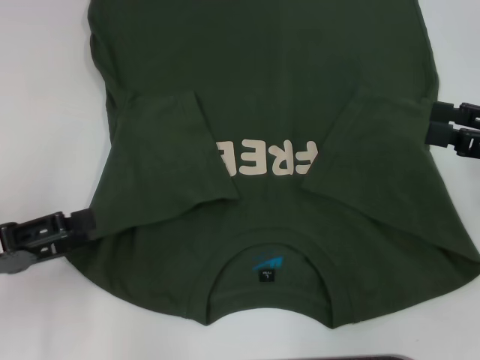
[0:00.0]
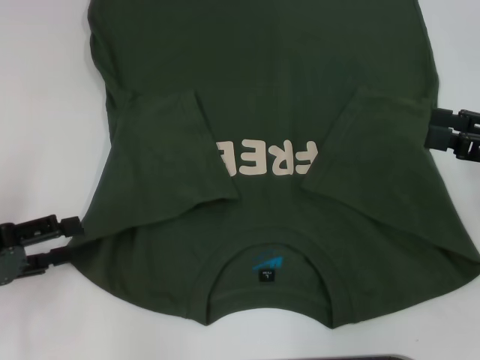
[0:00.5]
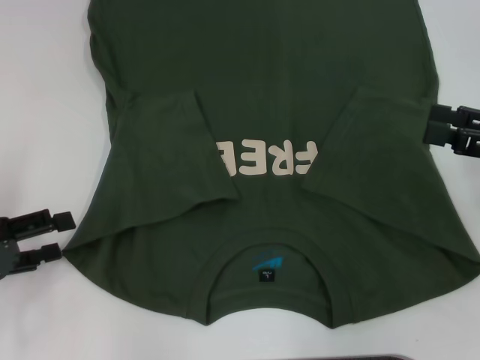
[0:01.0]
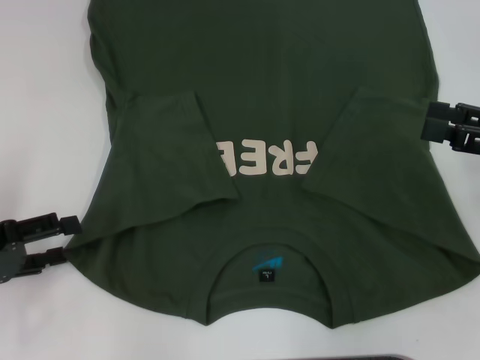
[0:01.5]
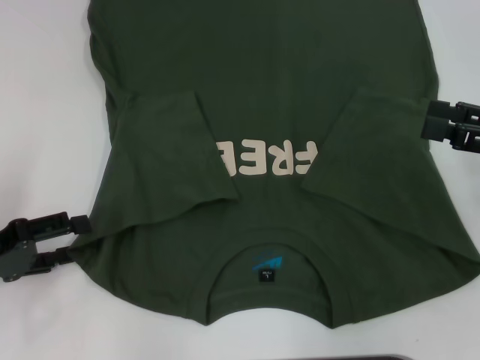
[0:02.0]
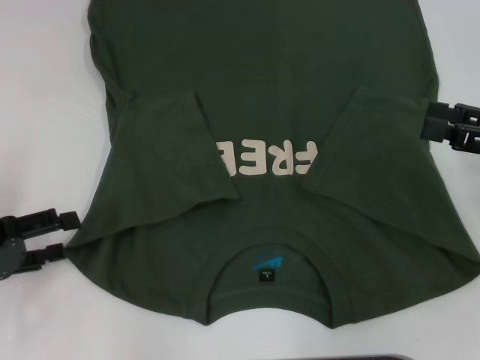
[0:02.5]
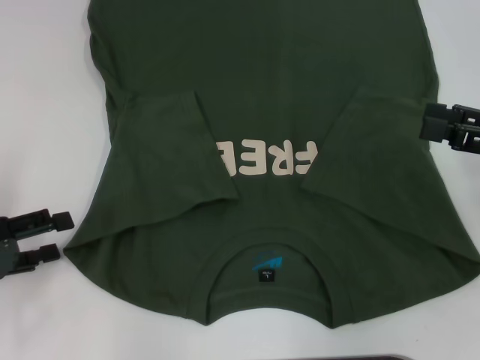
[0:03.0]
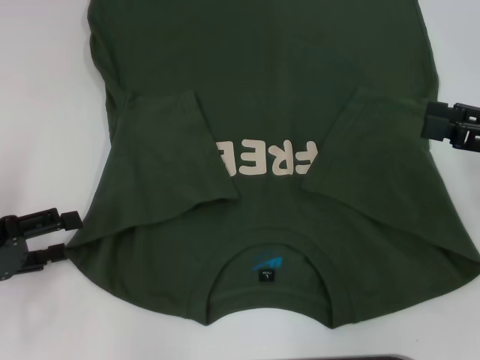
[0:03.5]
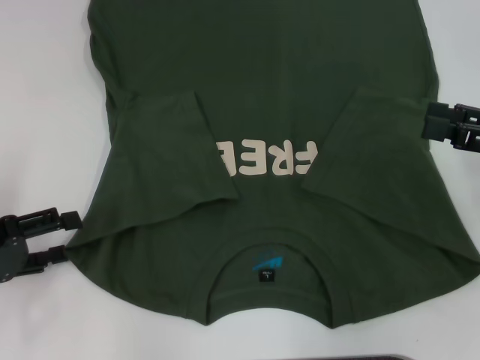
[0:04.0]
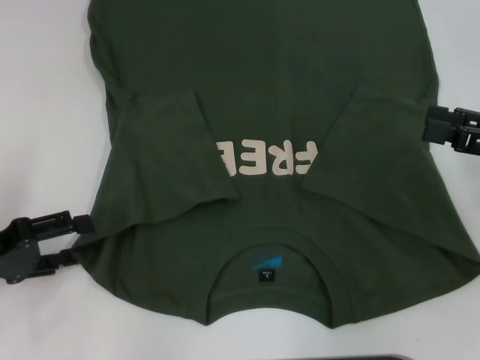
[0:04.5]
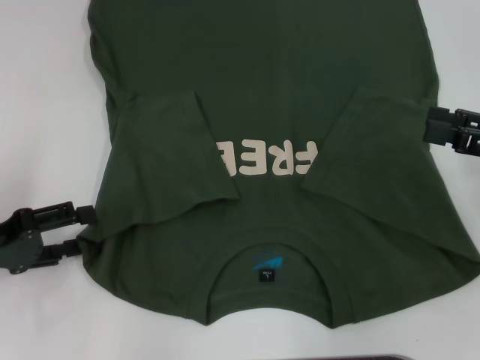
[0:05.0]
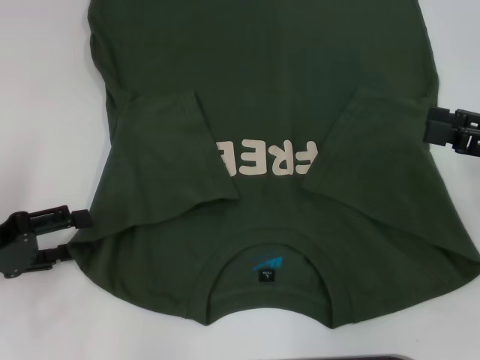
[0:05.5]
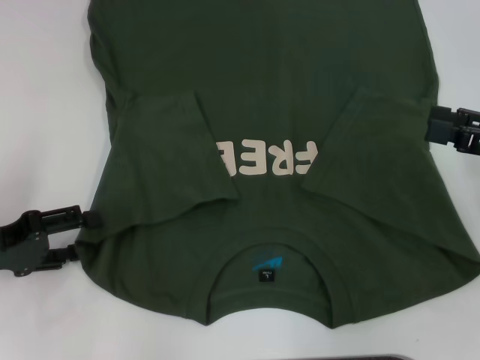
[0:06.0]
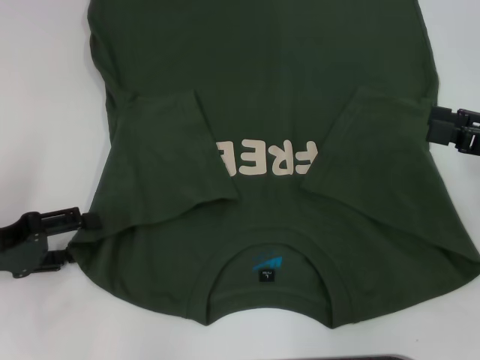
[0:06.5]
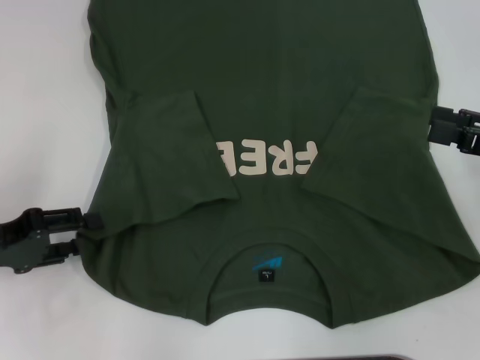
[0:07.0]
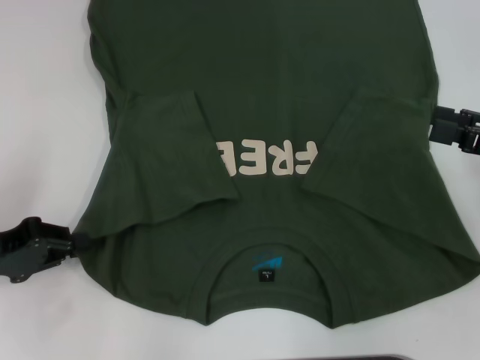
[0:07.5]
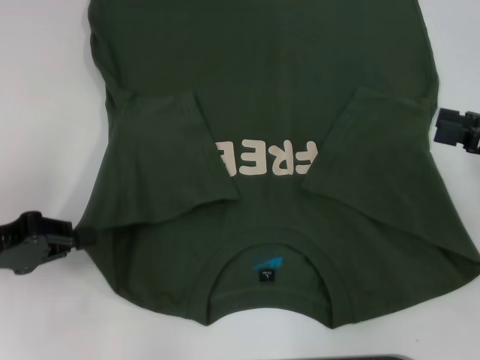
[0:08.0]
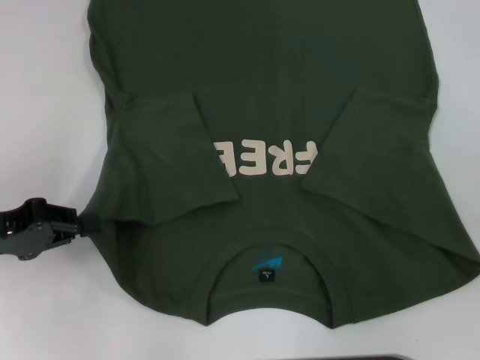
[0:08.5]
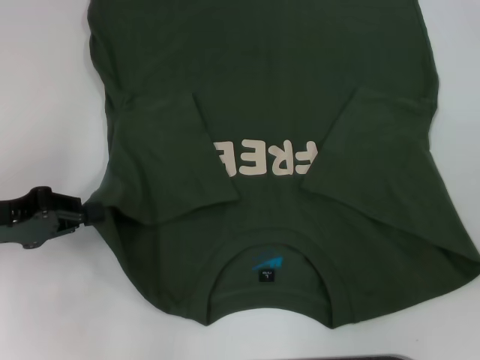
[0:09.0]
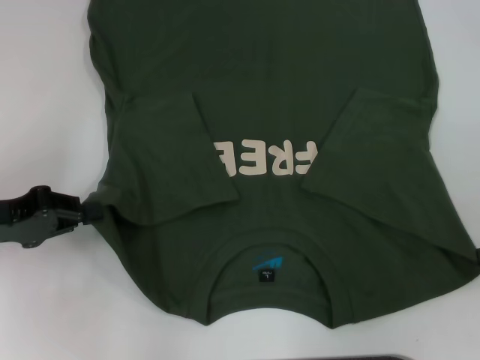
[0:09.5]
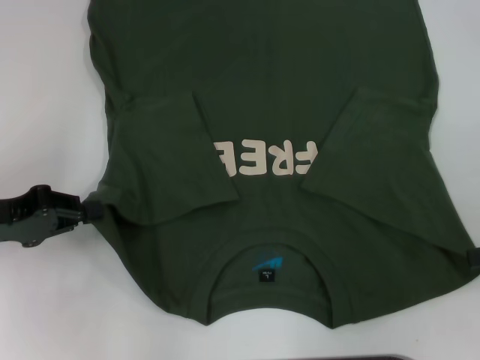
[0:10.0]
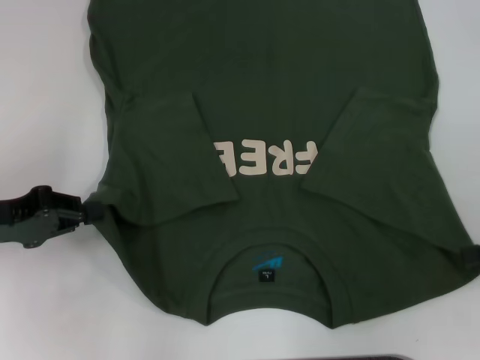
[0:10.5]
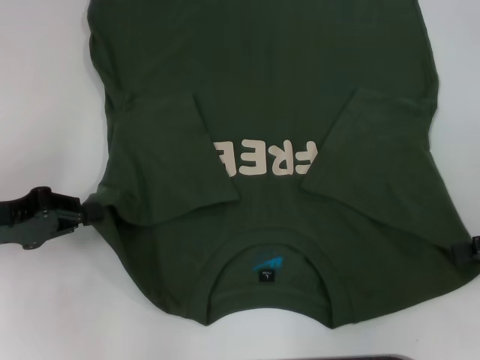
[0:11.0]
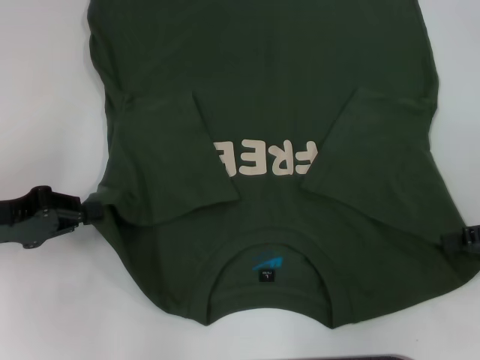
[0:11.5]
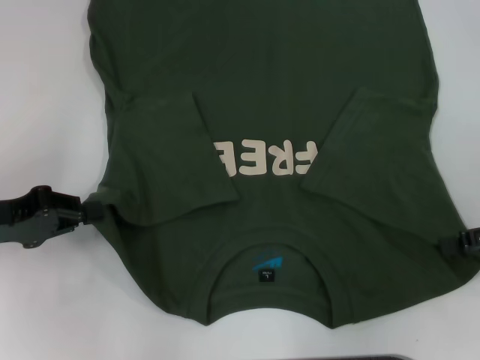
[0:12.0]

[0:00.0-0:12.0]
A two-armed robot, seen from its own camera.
Step, 0:00.0 to 0:07.5: Grab the bottom left corner with your left hand.
0:02.0 to 0:06.0: The grippers make only small movements.
0:06.0 to 0:08.0: The left gripper closes up.
0:08.0 to 0:10.0: The right gripper ends up some 5 cm from where it was.

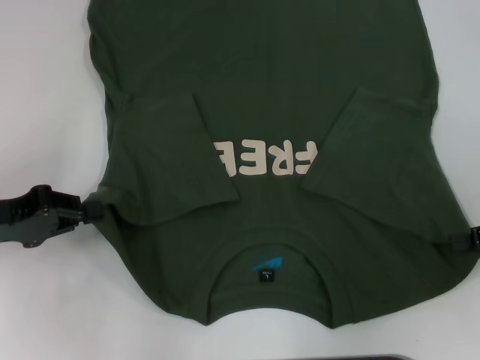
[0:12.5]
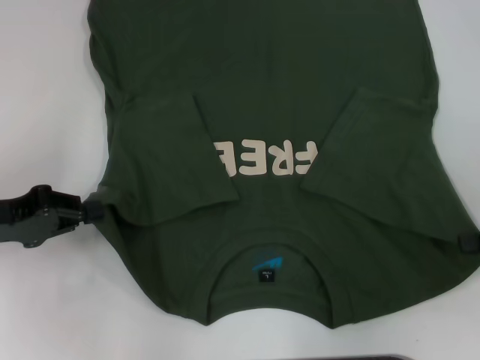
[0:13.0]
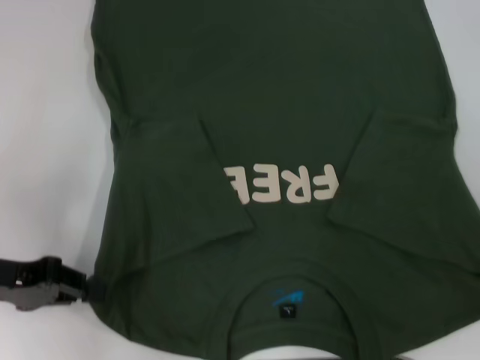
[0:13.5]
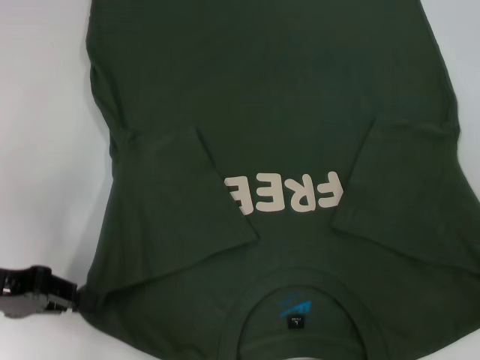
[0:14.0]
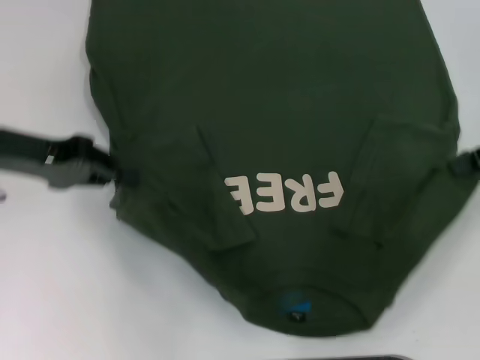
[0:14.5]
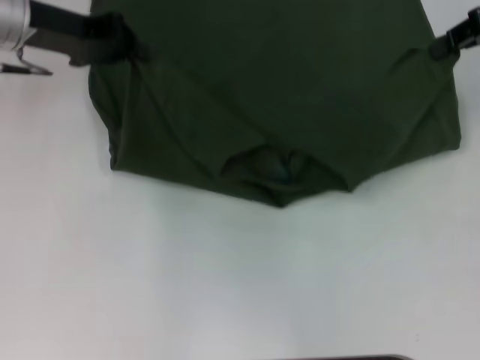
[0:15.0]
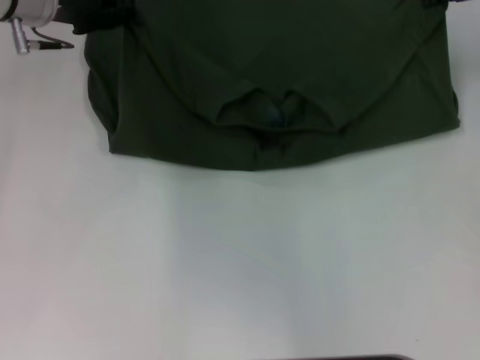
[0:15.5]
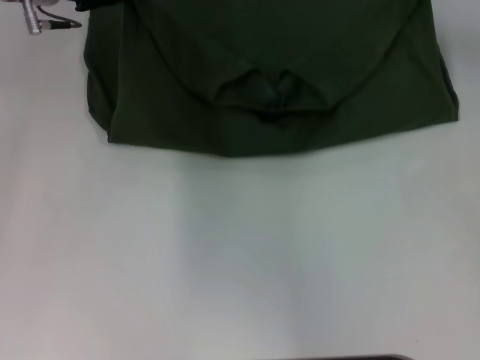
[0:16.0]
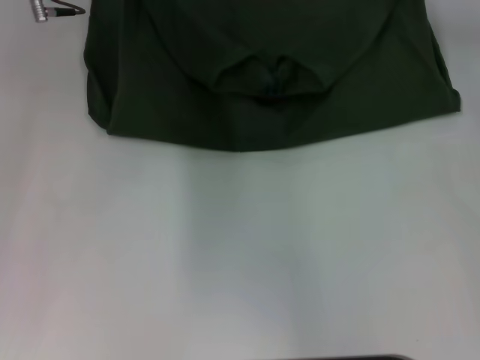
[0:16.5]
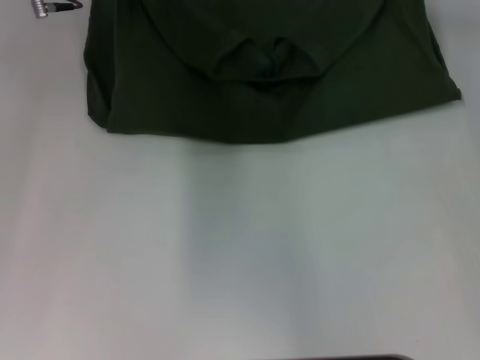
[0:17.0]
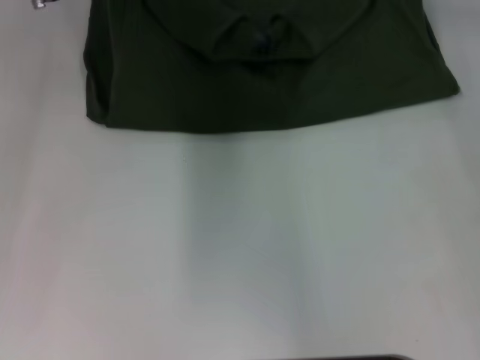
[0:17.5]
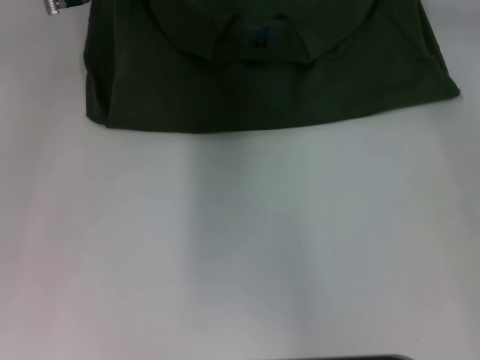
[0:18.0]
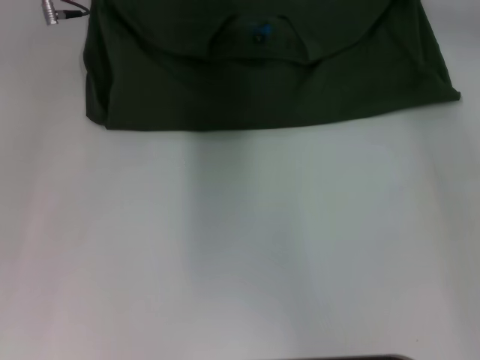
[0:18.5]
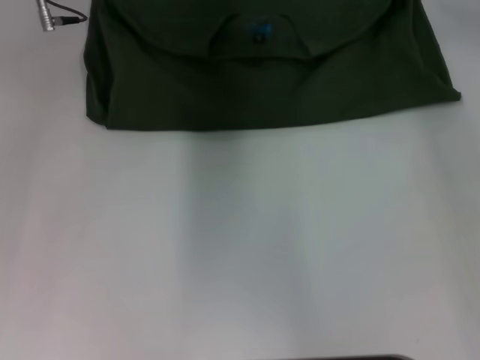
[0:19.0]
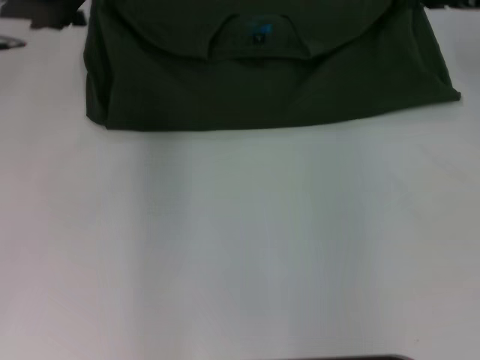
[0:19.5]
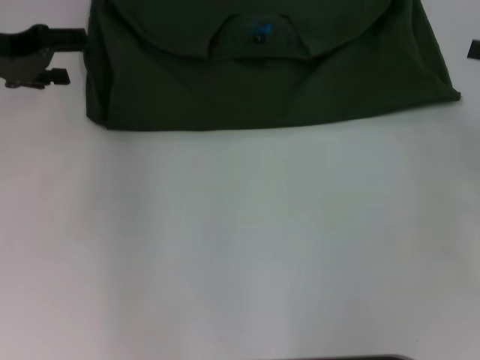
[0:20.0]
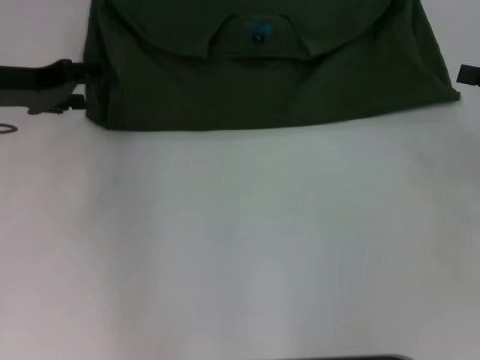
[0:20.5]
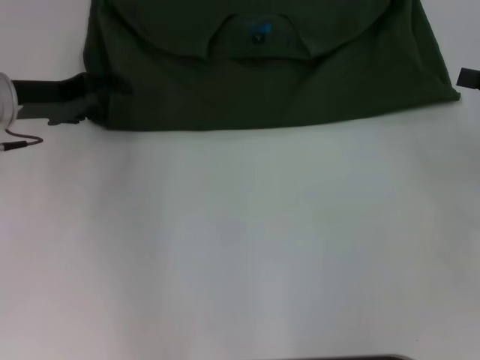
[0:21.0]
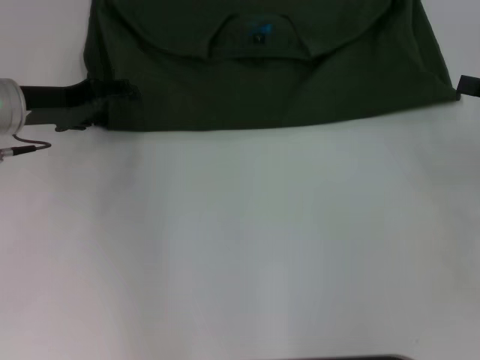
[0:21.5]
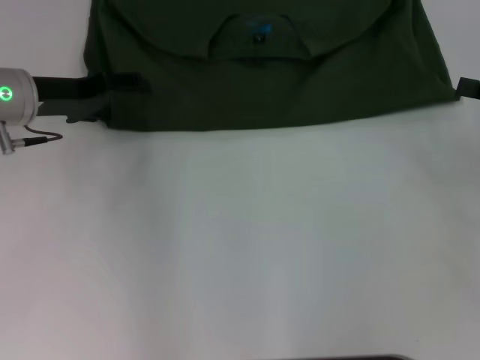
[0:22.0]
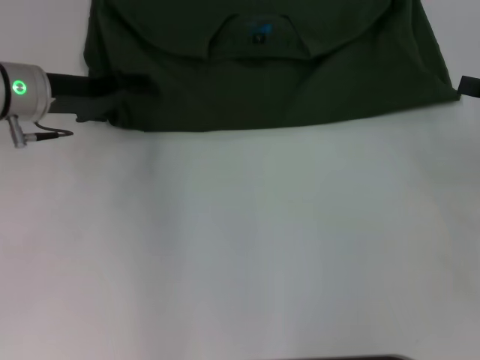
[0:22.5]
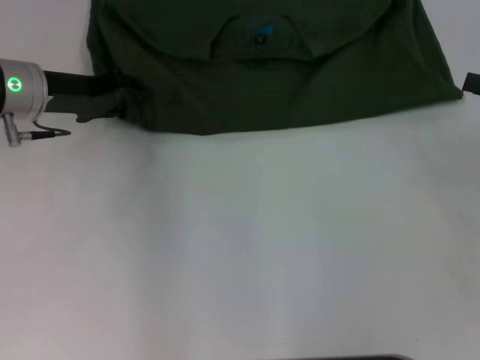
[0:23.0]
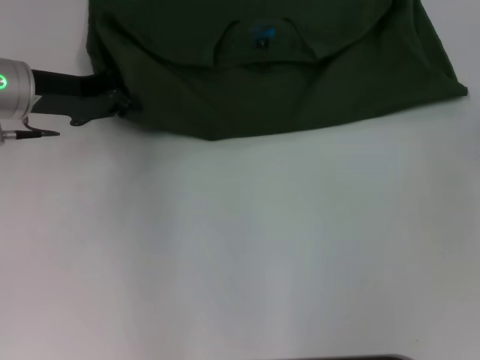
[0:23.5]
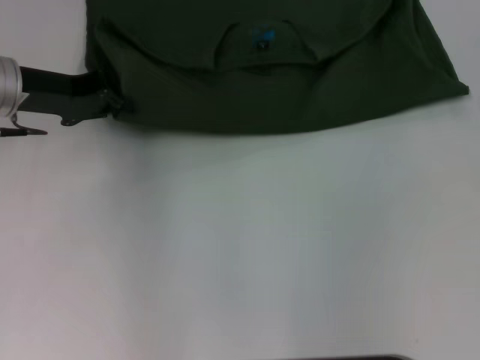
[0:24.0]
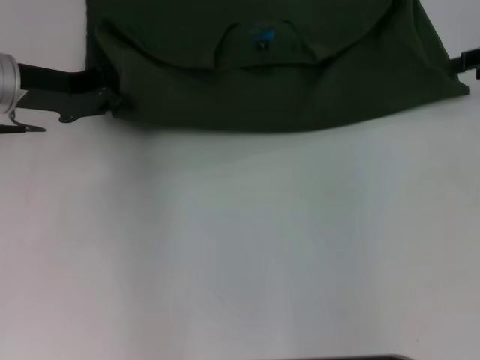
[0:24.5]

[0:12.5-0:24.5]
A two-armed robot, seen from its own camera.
Step, 0:13.0 to 0:18.5: Fold the clothes with your left hand.
Step, 0:13.0 to 0:18.5: Fold the clothes with your right hand.
0:12.5 to 0:14.5: The left gripper heads forward and upward, covering some 10 cm, while the right gripper moves upward and forward, roughly 10 cm, and closes up.
0:14.5 to 0:16.5: The left gripper is displaced forward and to the right by approximately 15 cm, while the right gripper moves forward and to the left, roughly 15 cm.
0:16.5 to 0:18.5: The right gripper shifts about 5 cm to the left.
0:18.5 to 0:20.5: The right gripper travels backward and to the right by approximately 25 cm, and opens. Meanwhile the left gripper moves to the left, backward and downward, about 15 cm, and opens its fingers.
0:20.5 to 0:22.5: The left gripper moves some 5 cm.
0:22.5 to 0:24.5: The left gripper closes. Meanwhile the right gripper shifts about 10 cm forward.

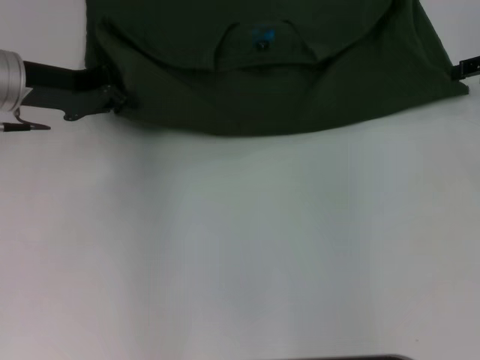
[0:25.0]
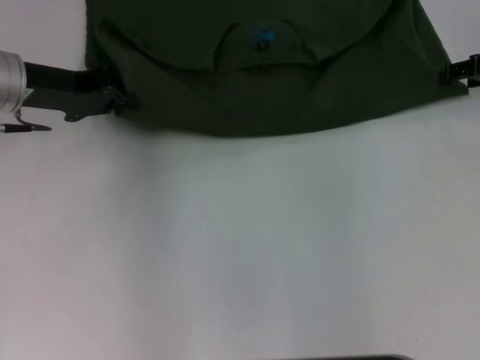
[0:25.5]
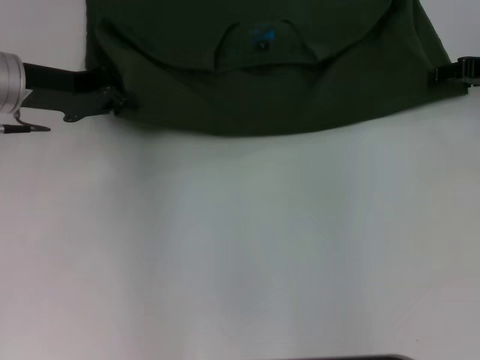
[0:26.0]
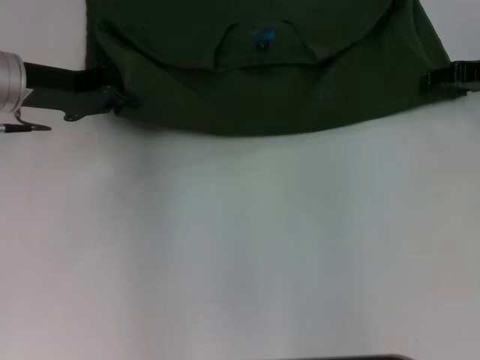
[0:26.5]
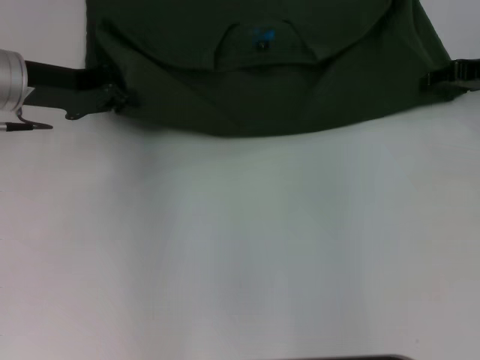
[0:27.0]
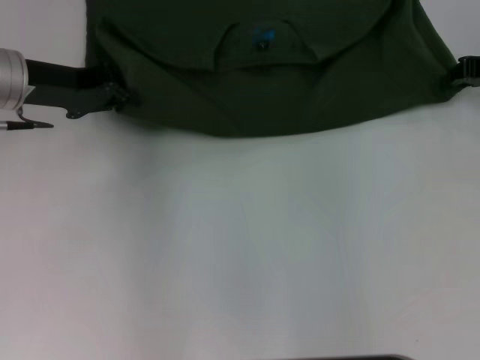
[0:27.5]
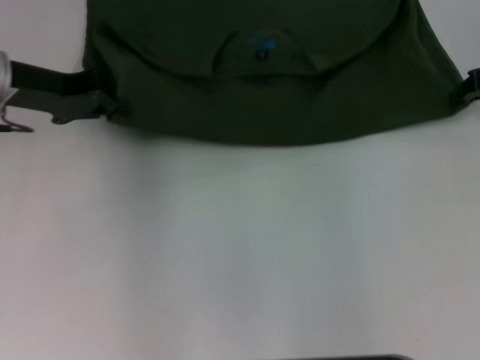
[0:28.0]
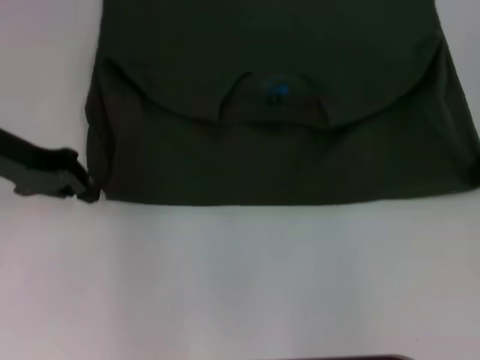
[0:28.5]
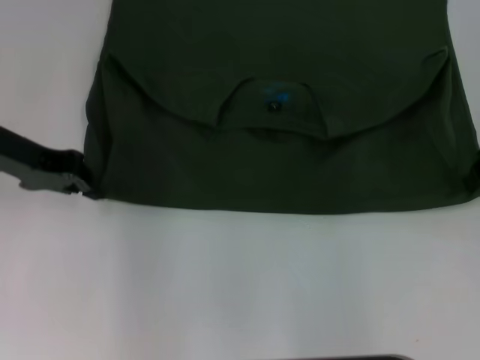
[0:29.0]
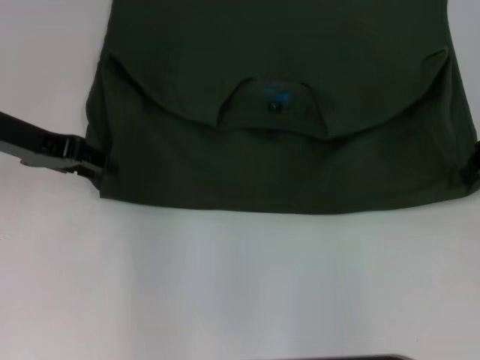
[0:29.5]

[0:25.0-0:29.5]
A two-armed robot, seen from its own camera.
0:27.0 to 0:29.5: The right gripper shifts by some 5 cm, and closes up.
